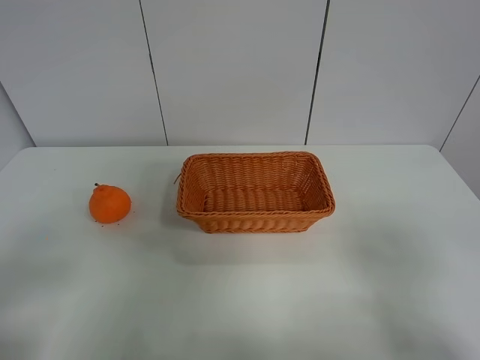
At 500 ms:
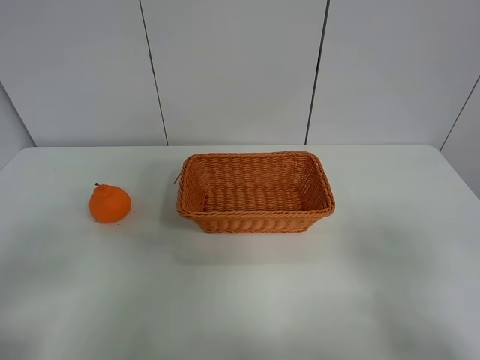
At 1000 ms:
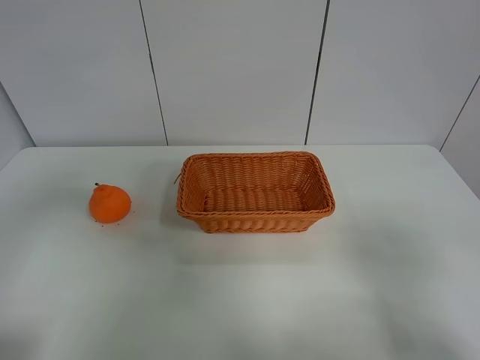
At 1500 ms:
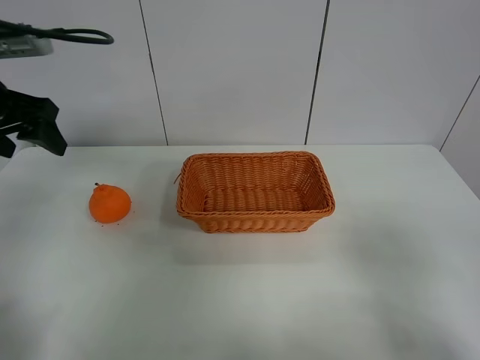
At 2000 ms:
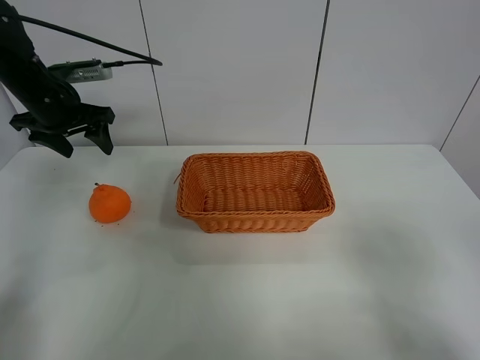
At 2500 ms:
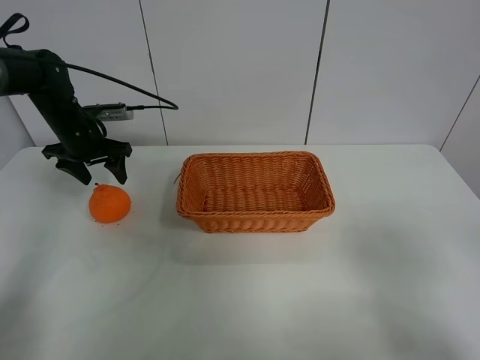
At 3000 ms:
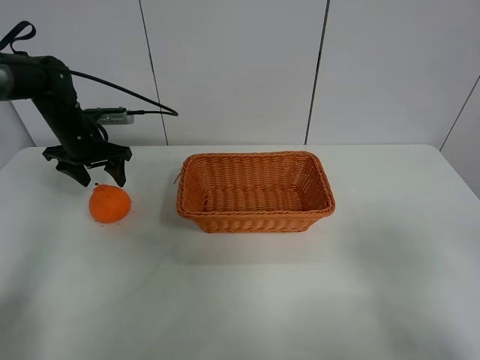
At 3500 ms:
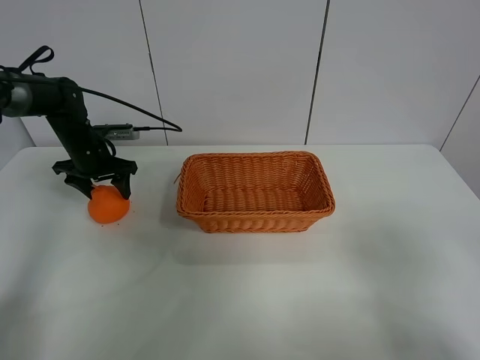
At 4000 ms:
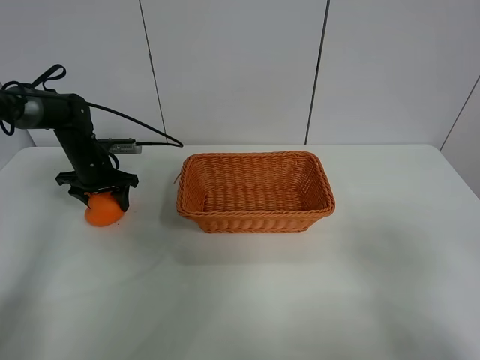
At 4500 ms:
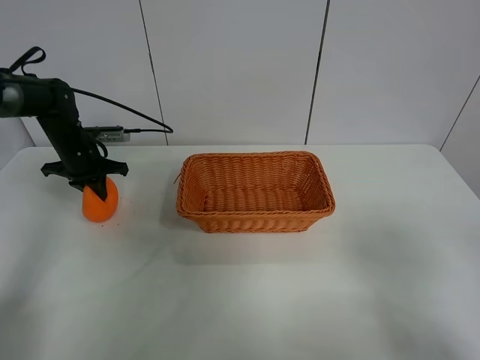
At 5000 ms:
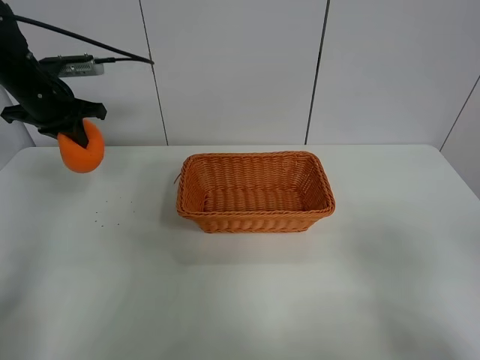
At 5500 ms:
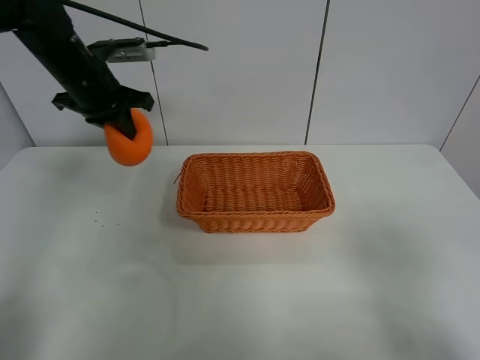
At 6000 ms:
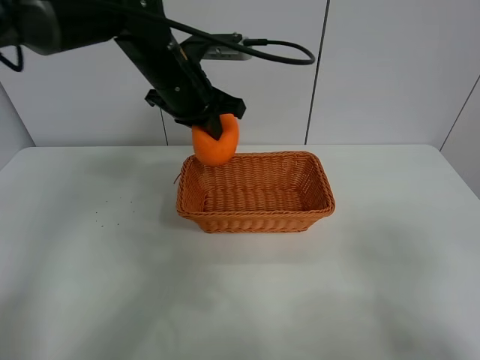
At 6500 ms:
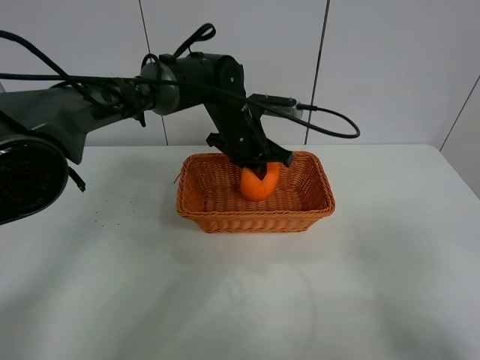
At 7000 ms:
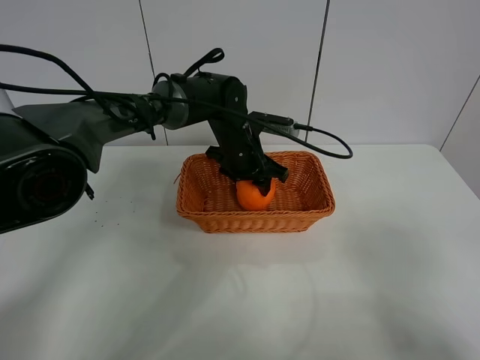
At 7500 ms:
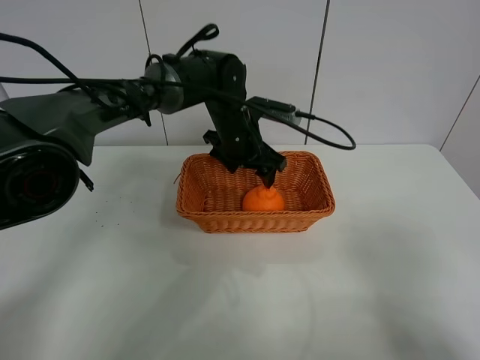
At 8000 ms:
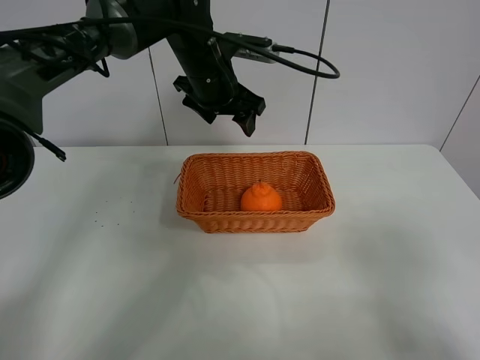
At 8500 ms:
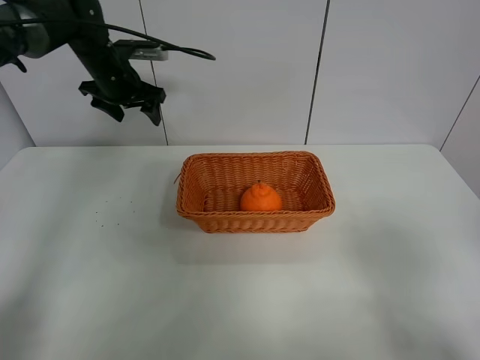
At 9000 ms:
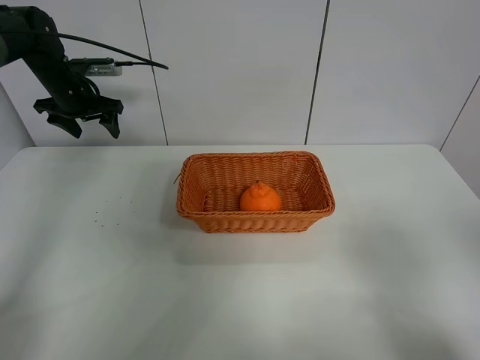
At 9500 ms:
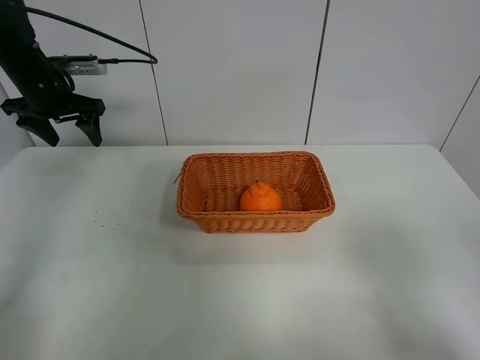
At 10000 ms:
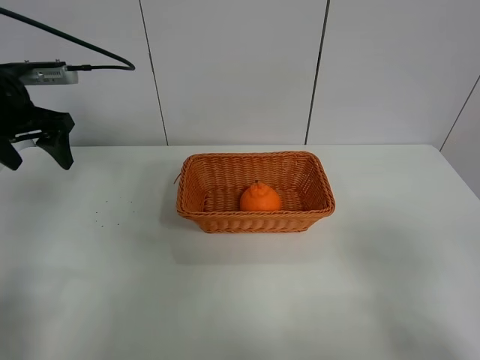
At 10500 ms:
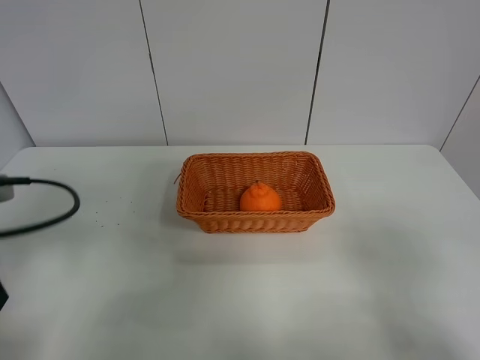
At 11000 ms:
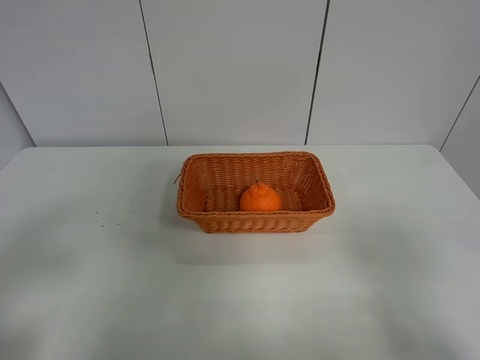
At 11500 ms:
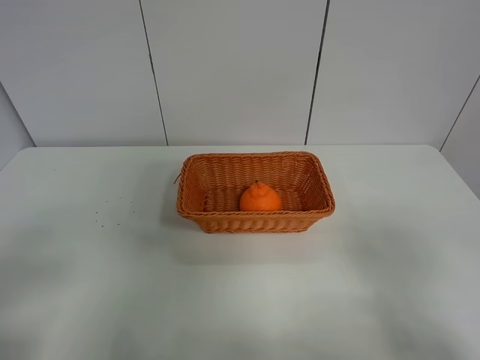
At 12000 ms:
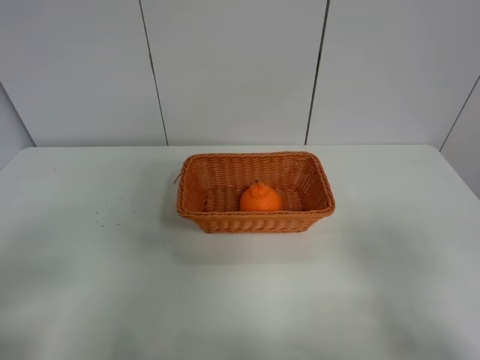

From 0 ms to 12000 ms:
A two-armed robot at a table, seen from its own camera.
Task of the whole recording: left gripper grabs oranges and puts them in the basket.
Step, from 0 ms to 4000 ms: Grasp the orange with left gripper.
Step, from 4500 ms to 8000 ms: Place the orange in the basket with left gripper.
From 0 ms to 2000 ms: The left gripper is displaced forward by approximately 40 cm.
From 2000 ms to 4000 ms: The left gripper is displaced downward by roughly 15 cm.
From 4000 ms to 6000 ms: The left gripper goes some 30 cm to the right and upward, and closes its fingers.
From 6000 ms to 8000 ms: The left gripper travels downward and back again, roughly 15 cm each way, and opens up.
From 8000 ms to 10000 ms: The left gripper is displaced to the left and backward by about 25 cm.
From 10000 ms to 12000 ms: The left gripper shifts approximately 35 cm backward.
